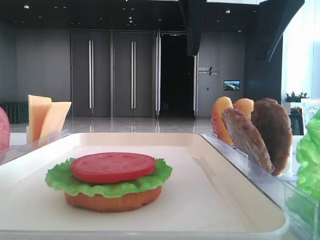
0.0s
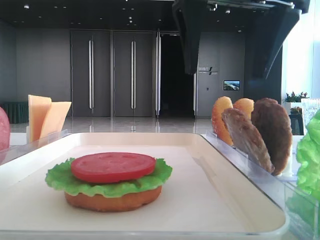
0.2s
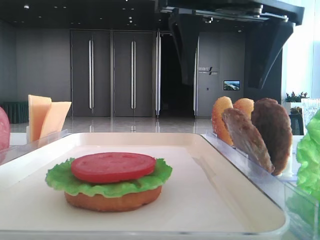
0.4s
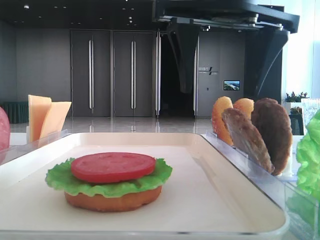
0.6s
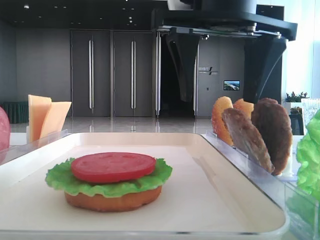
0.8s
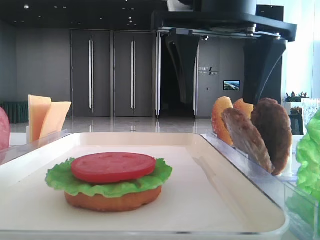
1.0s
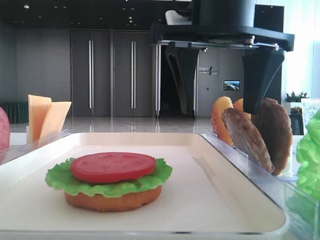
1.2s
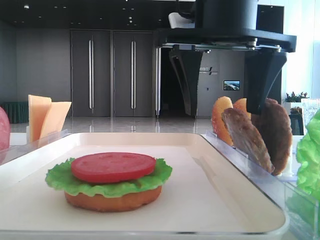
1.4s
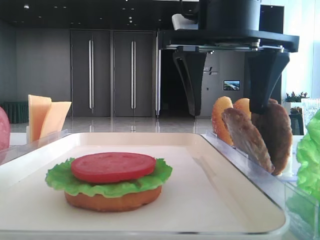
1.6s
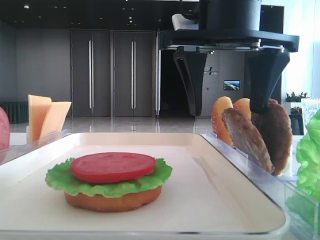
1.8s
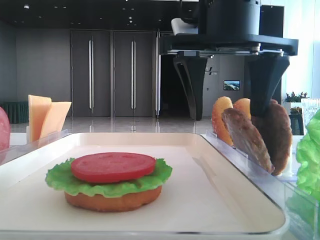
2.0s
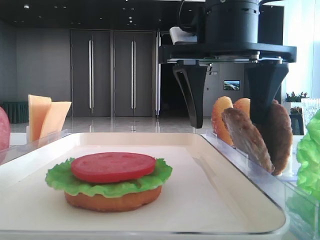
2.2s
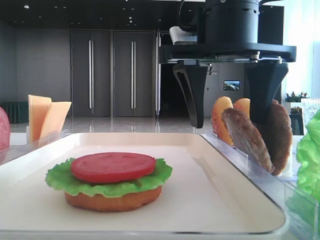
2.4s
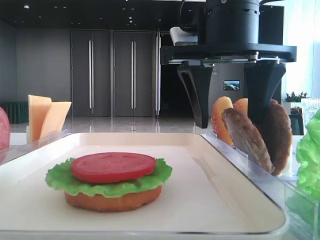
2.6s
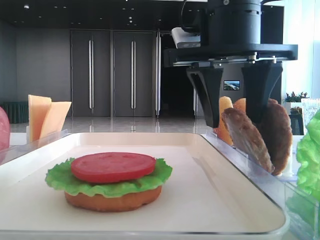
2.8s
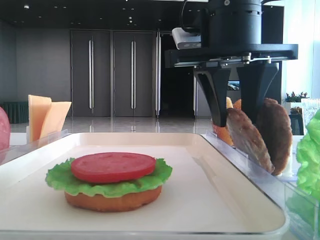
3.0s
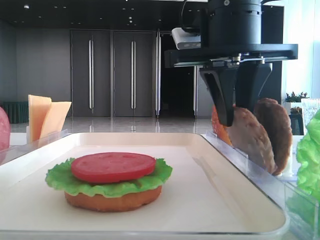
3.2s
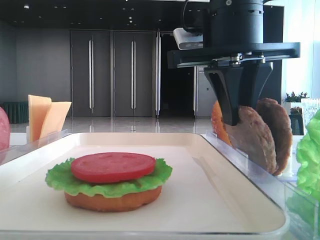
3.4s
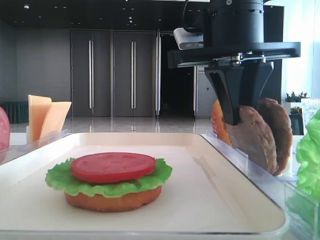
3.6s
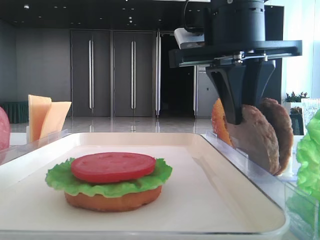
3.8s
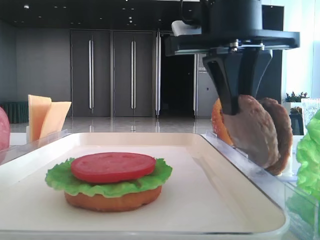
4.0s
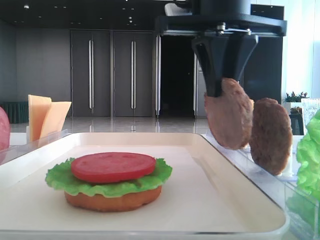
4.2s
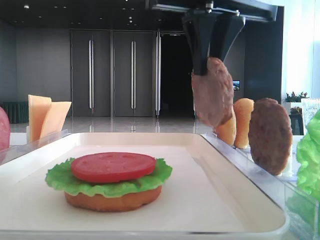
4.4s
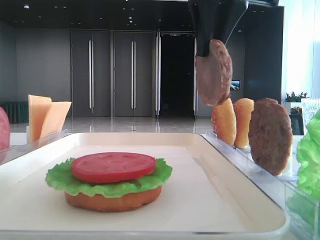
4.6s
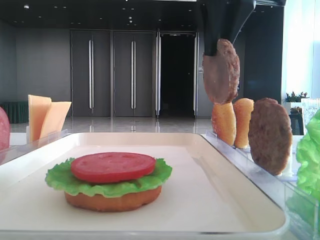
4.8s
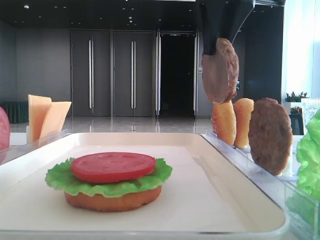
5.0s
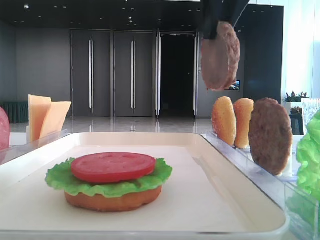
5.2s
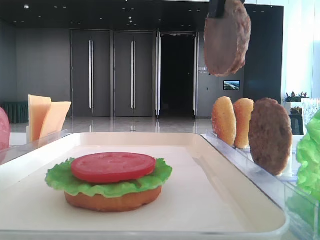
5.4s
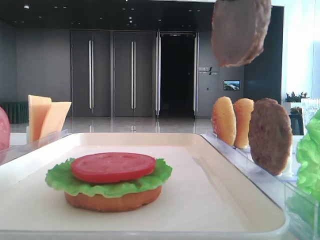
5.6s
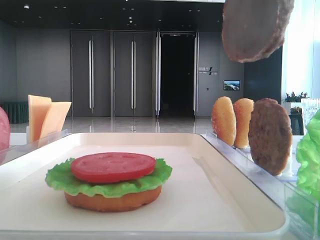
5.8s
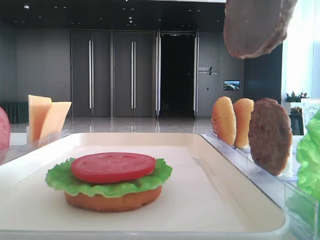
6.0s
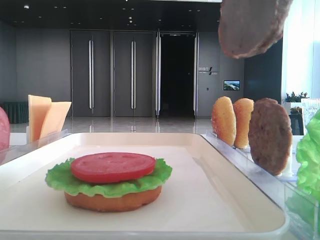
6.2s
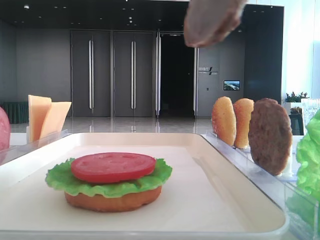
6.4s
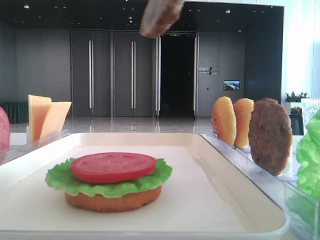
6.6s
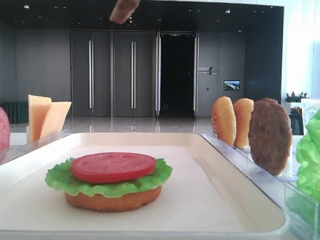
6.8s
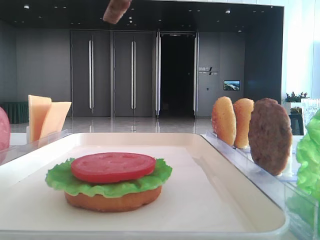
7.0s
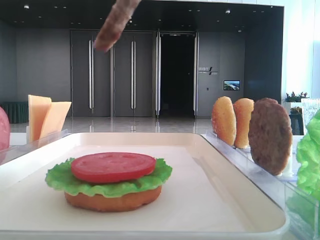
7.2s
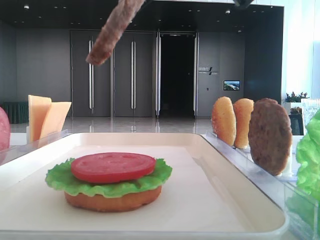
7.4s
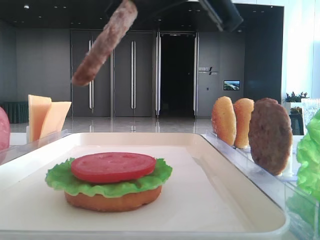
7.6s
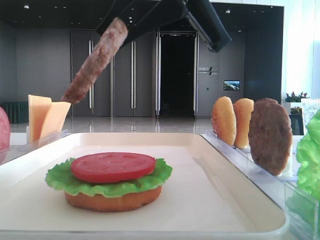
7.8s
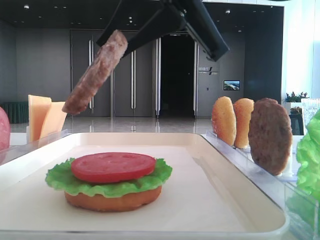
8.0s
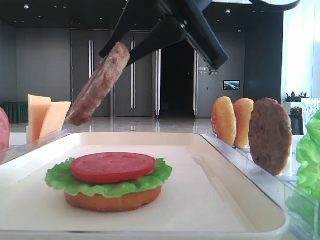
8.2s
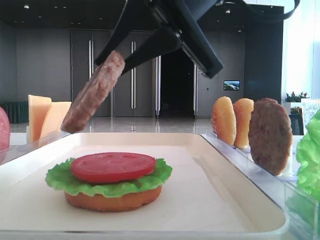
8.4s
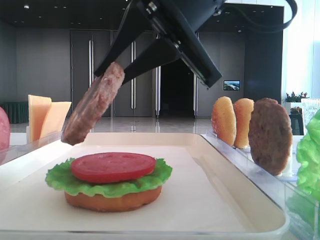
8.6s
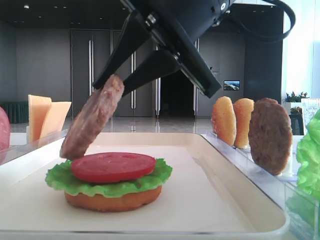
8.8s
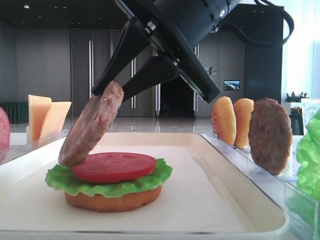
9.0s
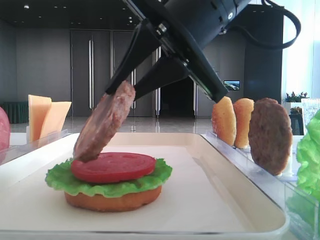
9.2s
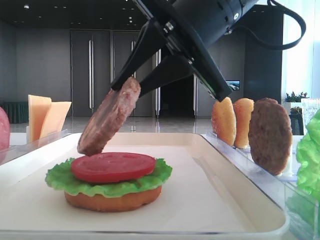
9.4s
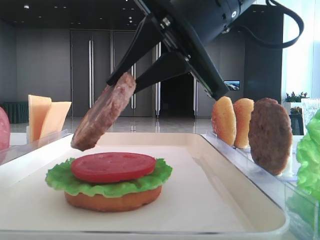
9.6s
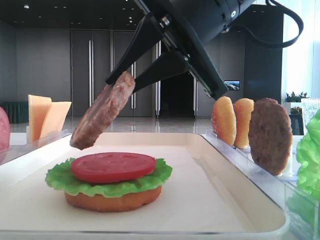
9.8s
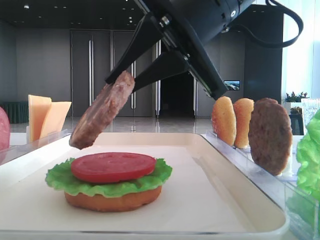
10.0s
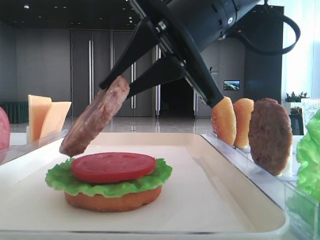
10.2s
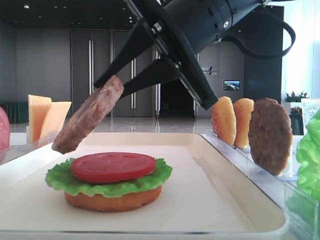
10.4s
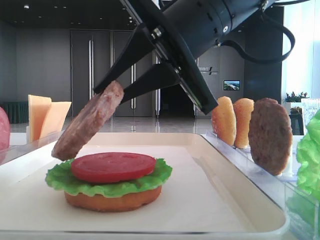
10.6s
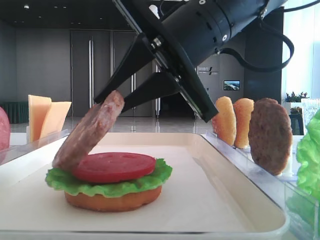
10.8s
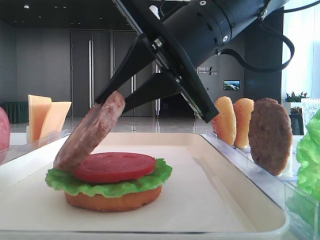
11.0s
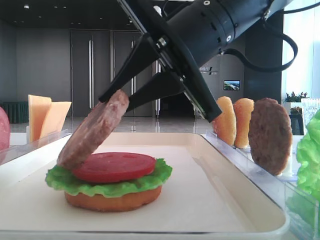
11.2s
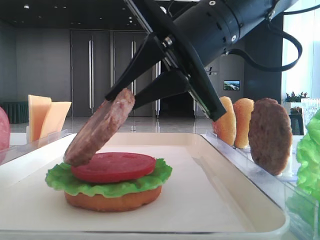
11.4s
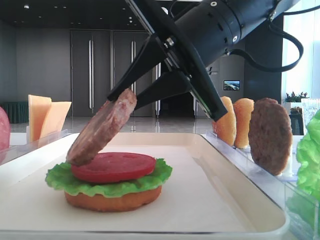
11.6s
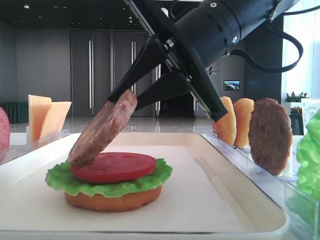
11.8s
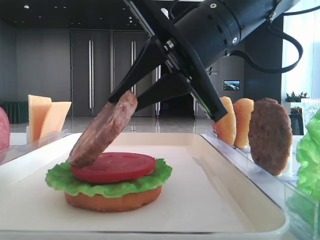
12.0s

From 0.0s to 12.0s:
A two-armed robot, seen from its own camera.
Step, from 0.0s to 3.4s: Grab the patty with the right hand.
From 0.0s to 1.6s: The right gripper shifts approximately 5 cm downward.
From 1.6s to 3.0s: The right gripper closes up.
From 3.0s to 4.4s: The right gripper shifts about 5 cm upward, and closes its fingers.
From 4.4s to 6.0s: The right gripper goes roughly 10 cm backward and upward.
From 6.0s to 7.6s: The right gripper travels downward and to the left by some 10 cm.
From 7.6s to 9.0s: The right gripper shifts some 5 cm downward.
From 9.0s to 12.0s: The grippers move only a little.

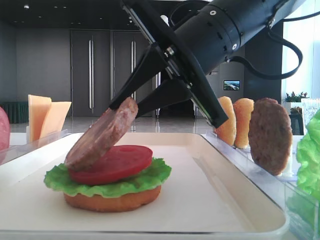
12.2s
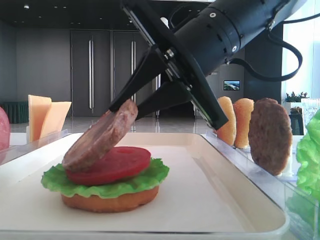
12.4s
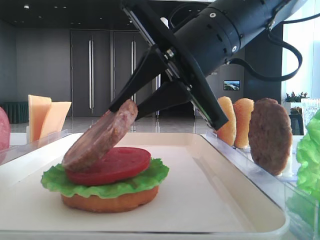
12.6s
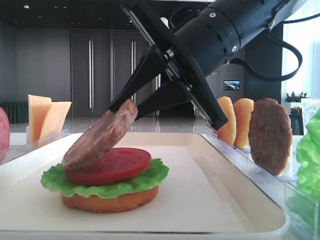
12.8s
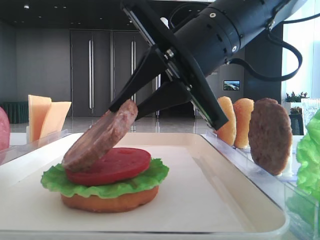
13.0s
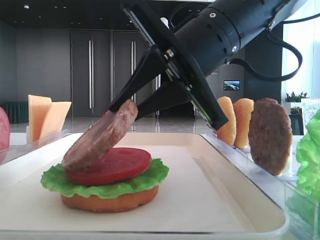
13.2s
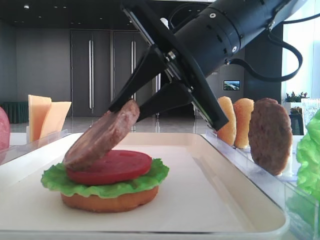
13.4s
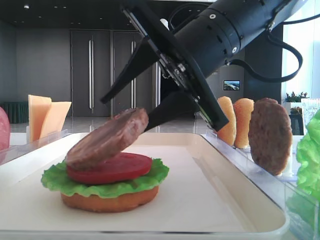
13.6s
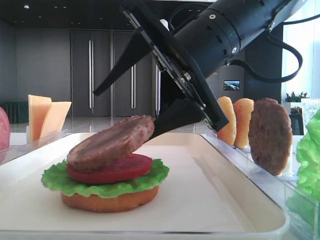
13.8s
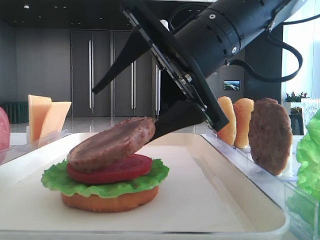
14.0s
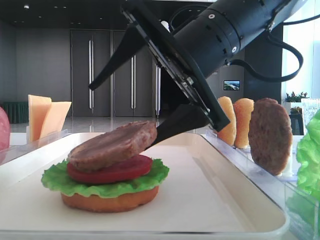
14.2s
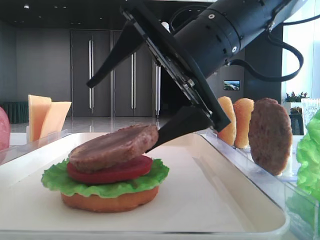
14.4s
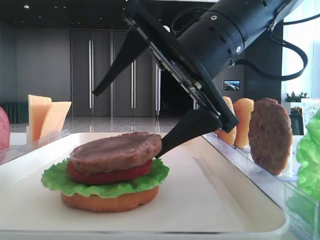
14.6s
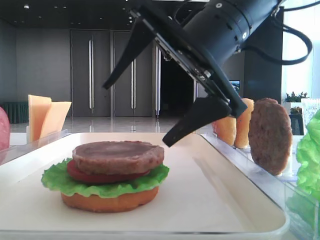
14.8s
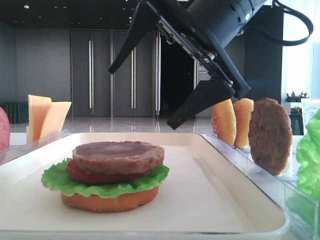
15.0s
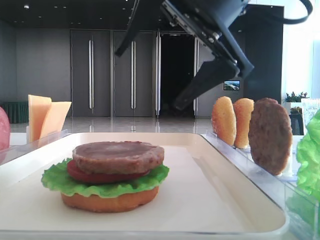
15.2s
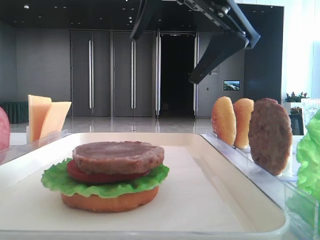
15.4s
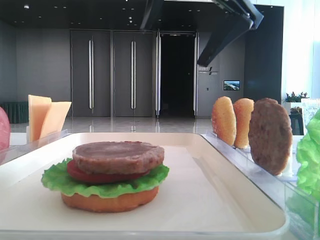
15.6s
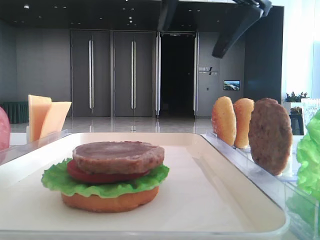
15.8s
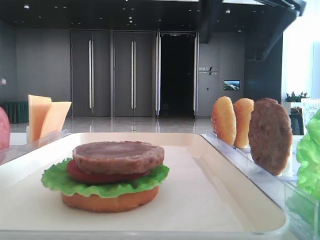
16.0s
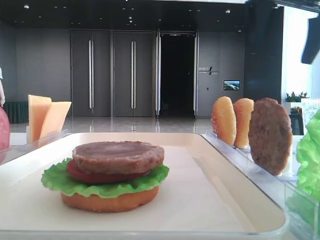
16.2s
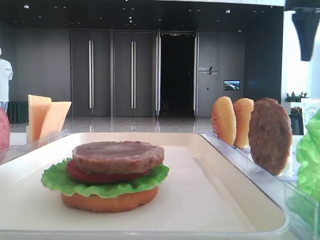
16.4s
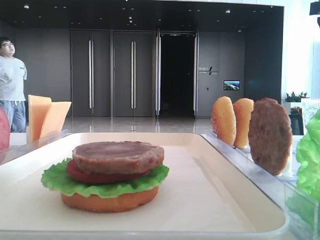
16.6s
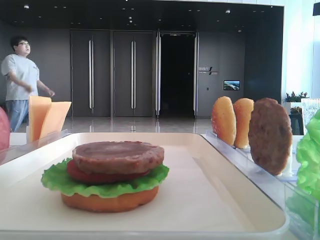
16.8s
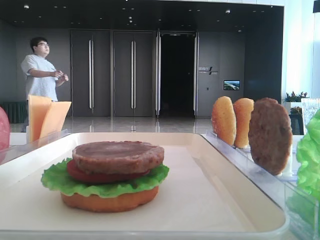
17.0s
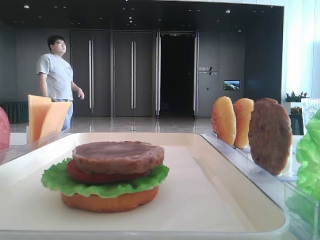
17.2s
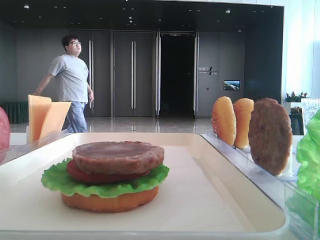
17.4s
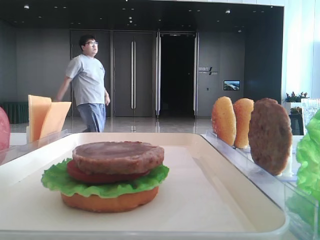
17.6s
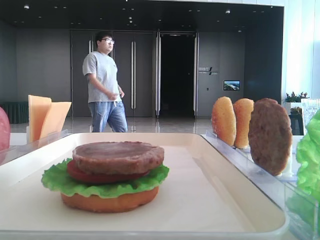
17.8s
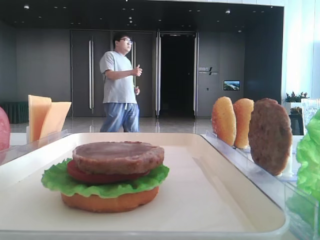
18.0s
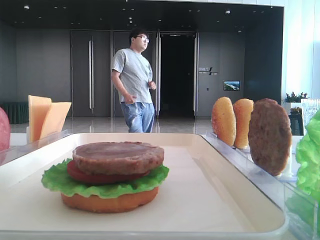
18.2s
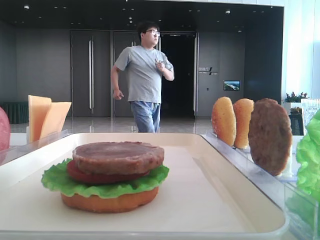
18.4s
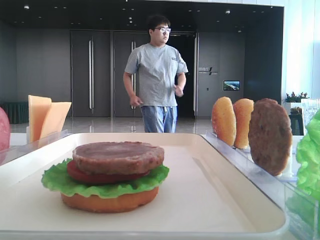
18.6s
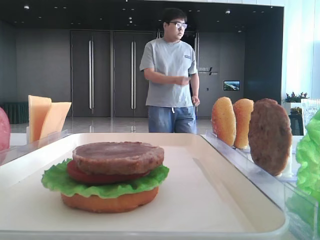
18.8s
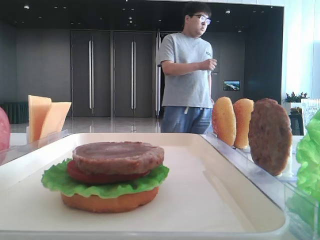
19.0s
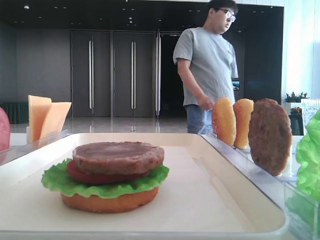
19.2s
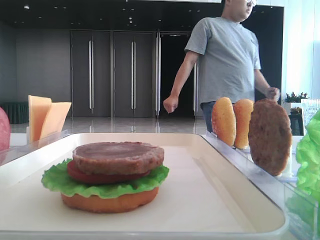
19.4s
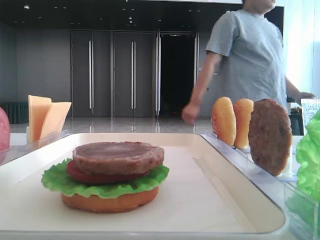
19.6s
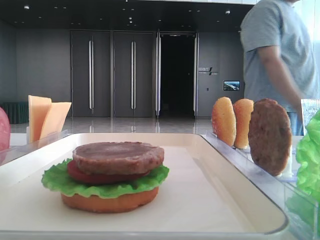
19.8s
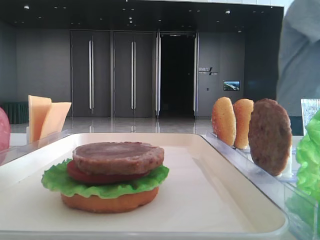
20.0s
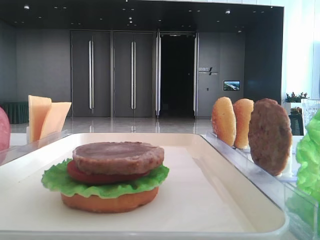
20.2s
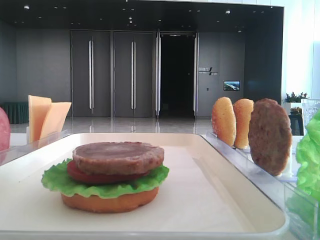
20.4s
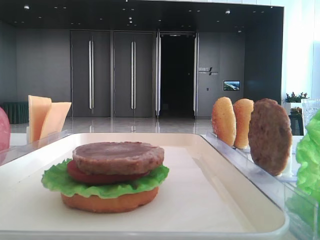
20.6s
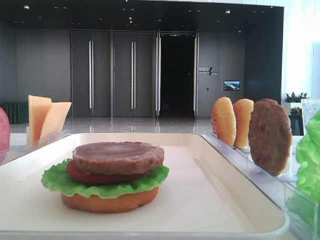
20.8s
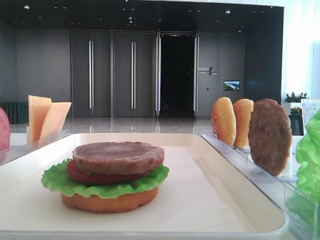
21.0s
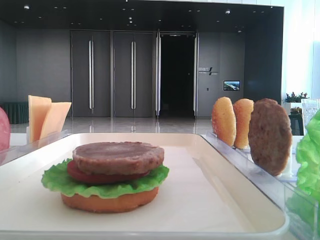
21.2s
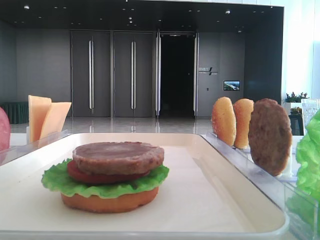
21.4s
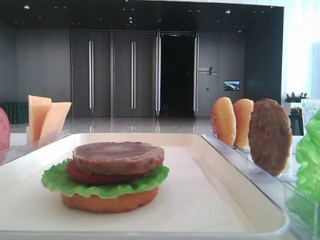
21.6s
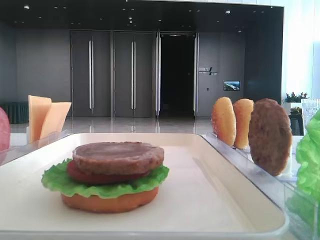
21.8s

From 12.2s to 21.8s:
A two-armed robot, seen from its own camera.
Step, from 12.2s to 14.6s: Place the patty on the tomato slice with the right hand.
From 12.2s to 13.8s: The right gripper opens up.
From 13.8s to 15.4s: The right gripper travels upward by approximately 10 cm.
From 15.4s to 17.0s: The right gripper travels to the right by roughly 25 cm.
From 17.0s to 18.6s: The right gripper goes approximately 35 cm backward and upward.
From 18.6s to 20.2s: The right gripper travels downward and backward by about 20 cm.

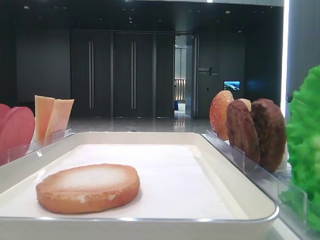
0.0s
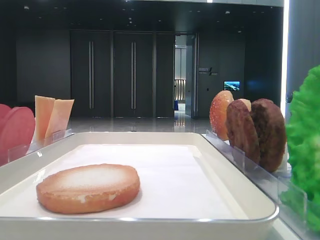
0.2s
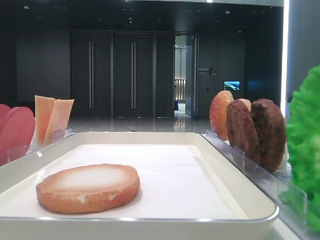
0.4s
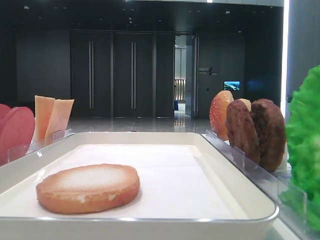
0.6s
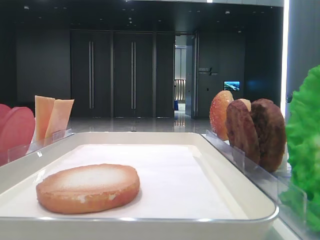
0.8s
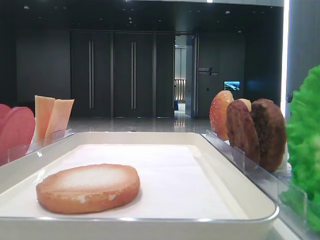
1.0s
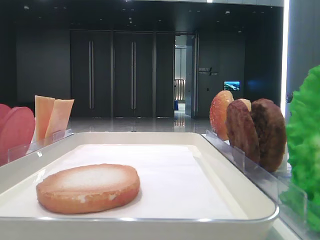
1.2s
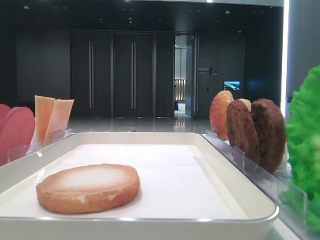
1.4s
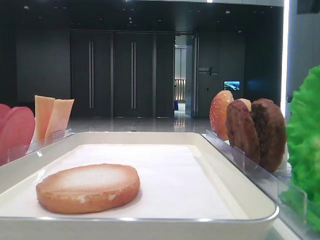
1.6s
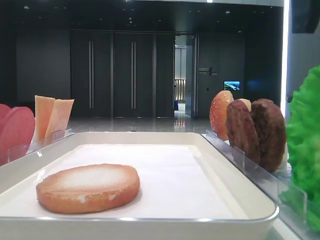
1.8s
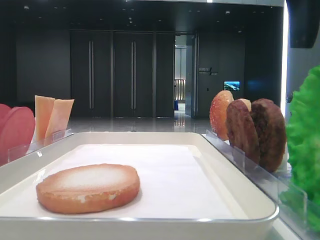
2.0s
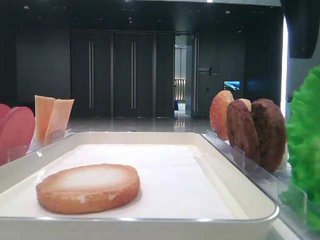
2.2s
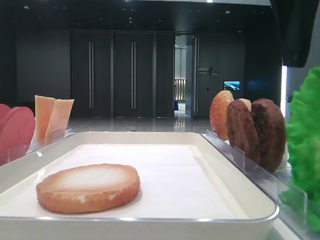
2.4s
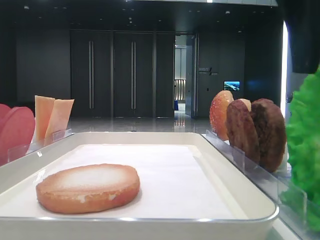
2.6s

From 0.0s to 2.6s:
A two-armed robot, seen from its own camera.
From 1.2s to 2.6s: The right gripper goes about 5 cm downward.
